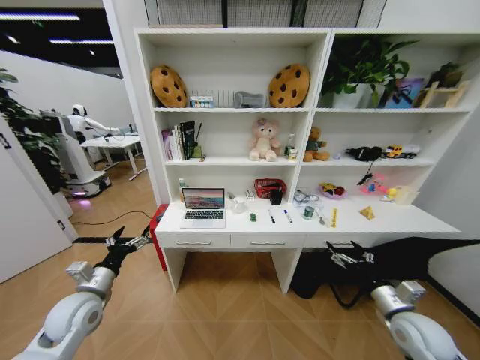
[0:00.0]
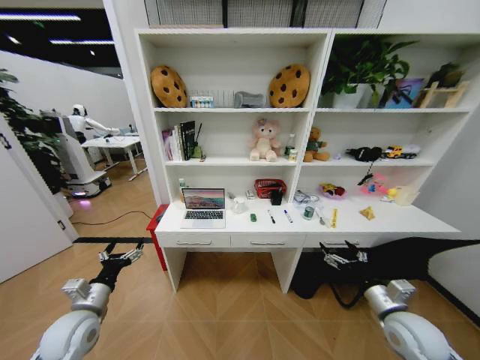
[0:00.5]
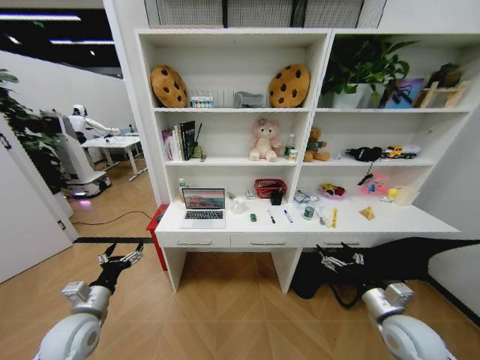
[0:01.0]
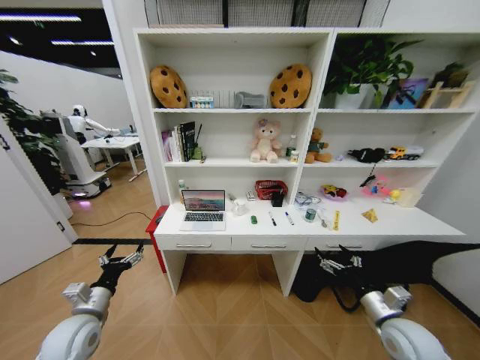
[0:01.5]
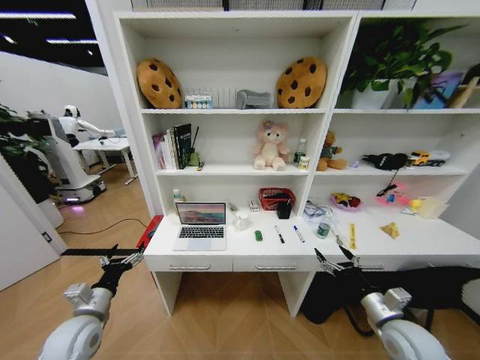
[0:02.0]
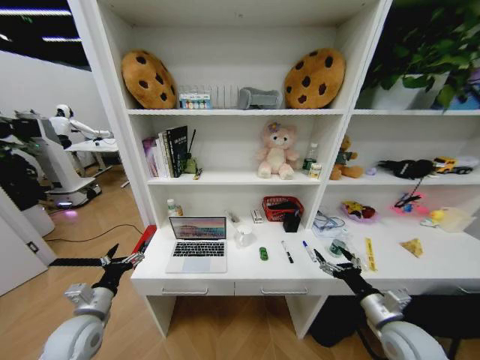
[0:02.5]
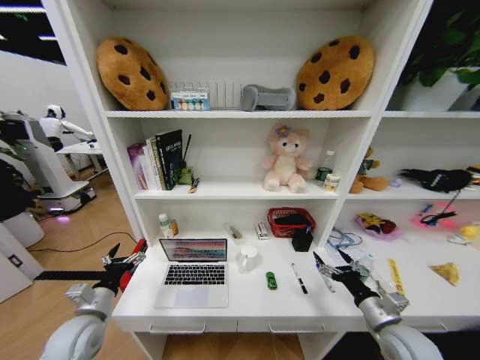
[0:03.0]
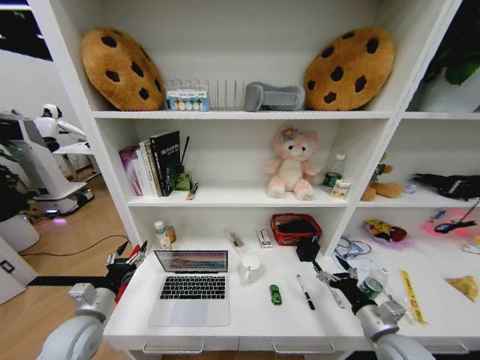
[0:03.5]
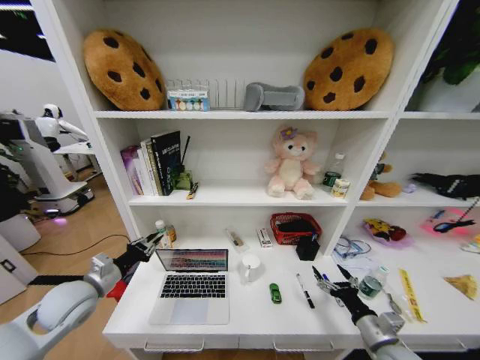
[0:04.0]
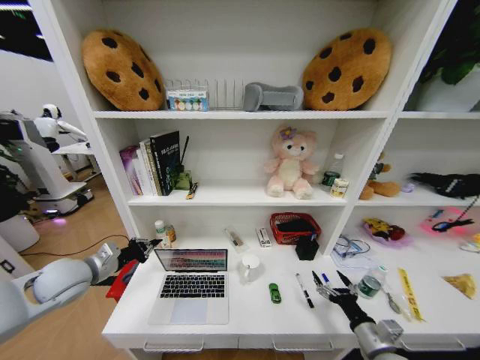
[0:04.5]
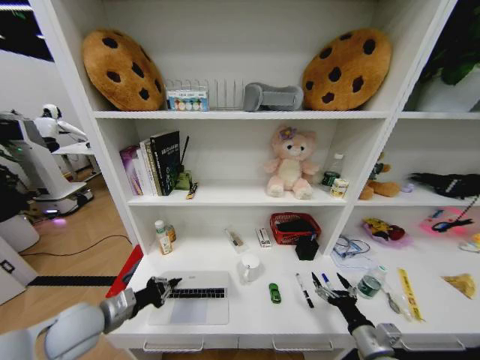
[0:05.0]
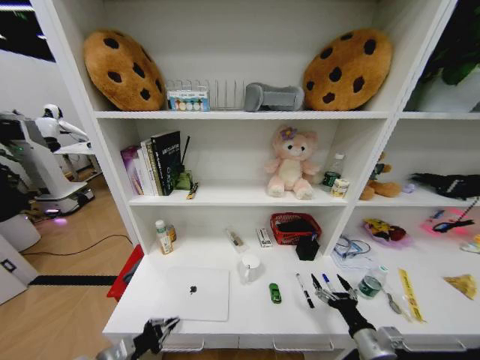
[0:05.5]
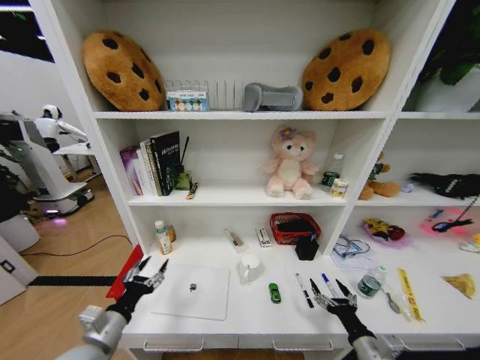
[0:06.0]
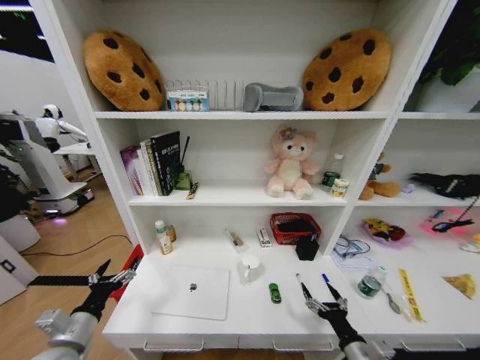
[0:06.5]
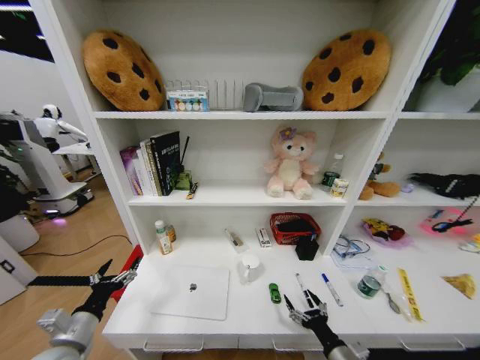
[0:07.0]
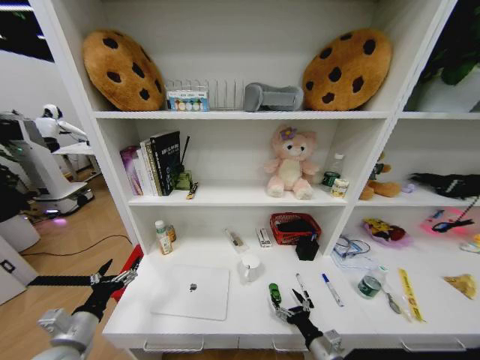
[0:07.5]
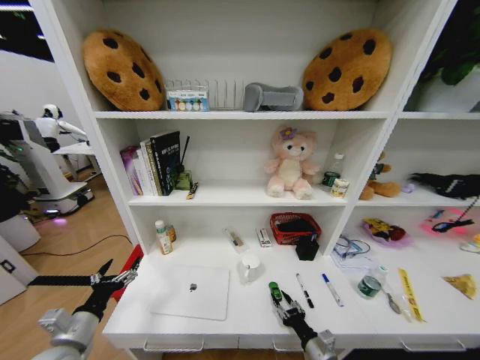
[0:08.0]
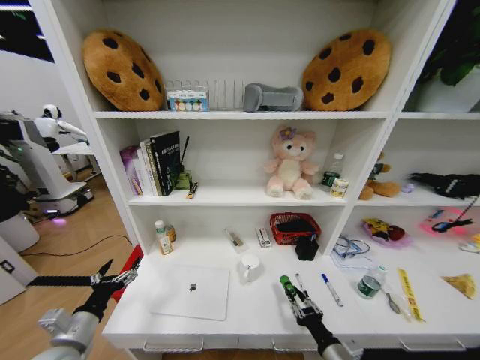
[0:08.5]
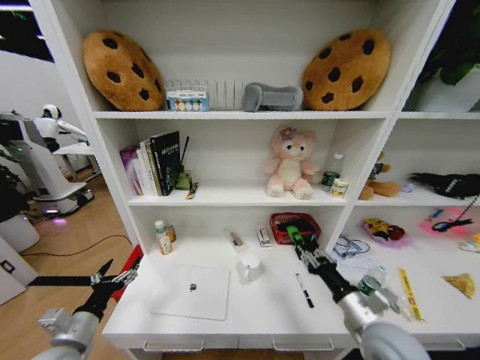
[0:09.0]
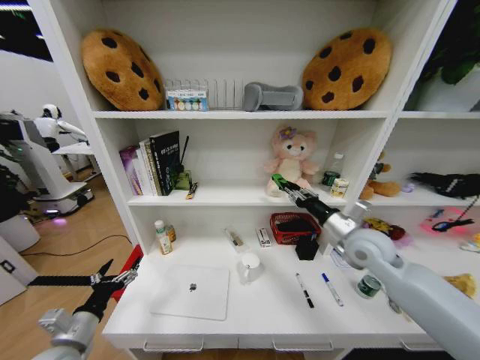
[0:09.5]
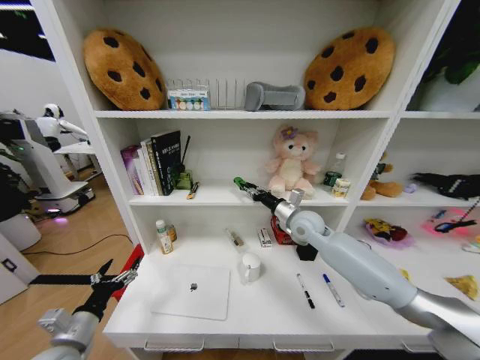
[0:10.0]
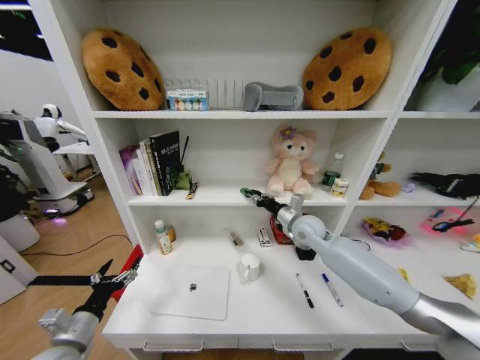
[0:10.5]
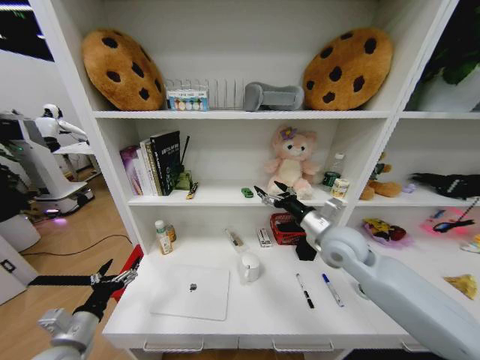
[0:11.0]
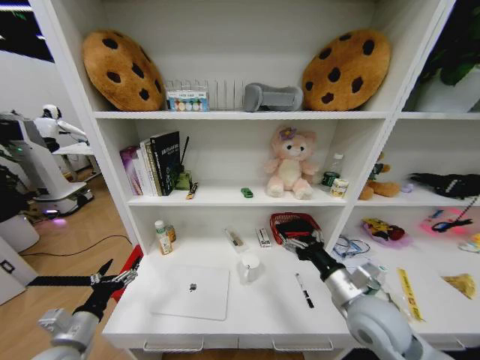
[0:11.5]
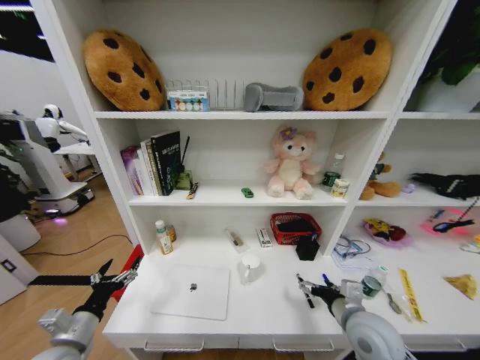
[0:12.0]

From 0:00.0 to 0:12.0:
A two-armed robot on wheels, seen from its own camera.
Task of the whole recording: Organize the objects on the table.
From 0:02.0 to 0:04.0: The right gripper ends up roughly 5 cm from where it was; the left gripper goes approximately 5 cm upward, and closes its fingers.
From 0:04.0 to 0:06.0: The left gripper swings up and down, roughly 15 cm each way, with 2 reversals, and opens up. Meanwhile the right gripper shifts by about 5 cm.
From 0:06.0 to 0:08.0: The left gripper heads to the left, covering about 5 cm, and opens its fingers. Meanwhile the right gripper goes roughly 10 cm downward and to the left, and closes.
From 0:08.0 to 0:10.0: The right gripper heads forward and upward, covering roughly 40 cm.
From 0:10.0 to 0:12.0: The right gripper travels backward by about 25 cm, and opens its fingers.

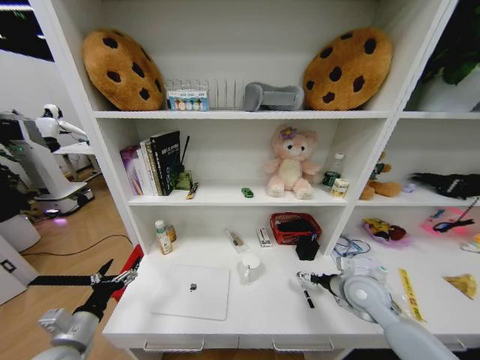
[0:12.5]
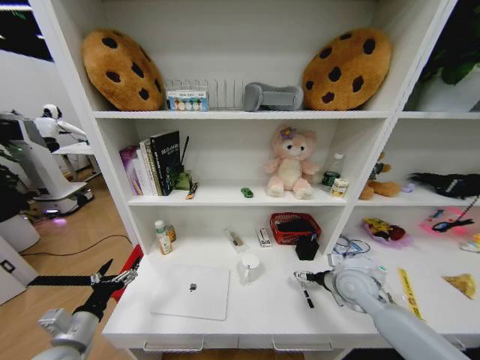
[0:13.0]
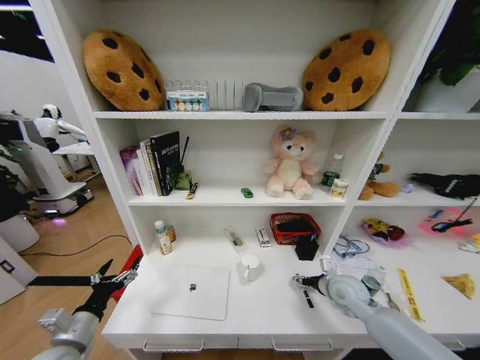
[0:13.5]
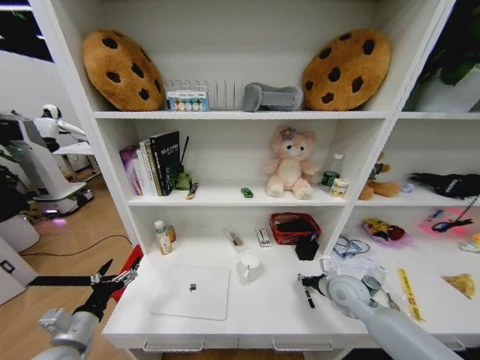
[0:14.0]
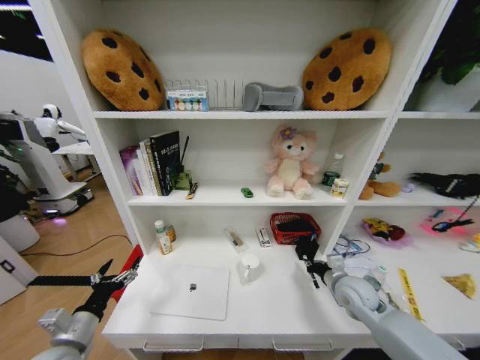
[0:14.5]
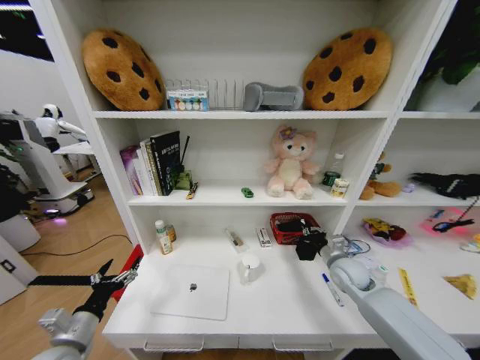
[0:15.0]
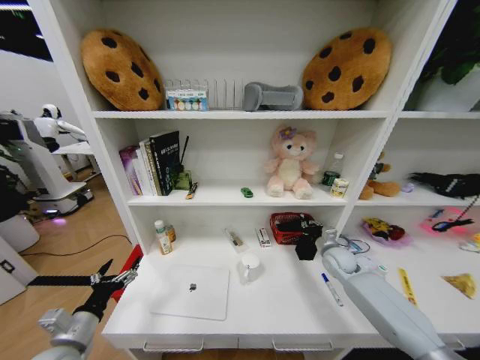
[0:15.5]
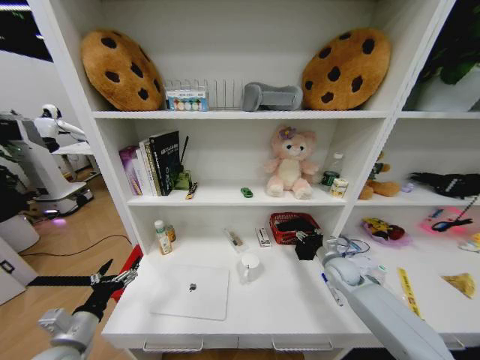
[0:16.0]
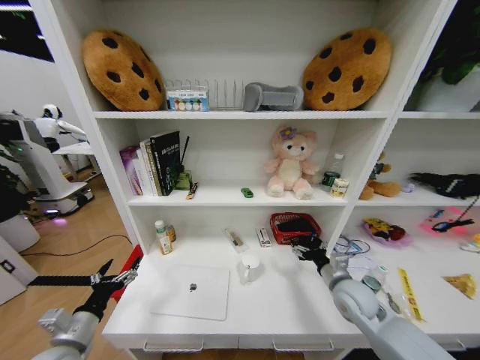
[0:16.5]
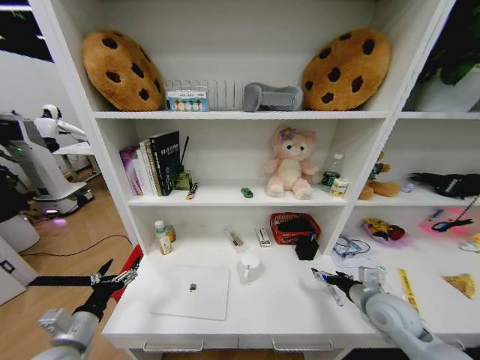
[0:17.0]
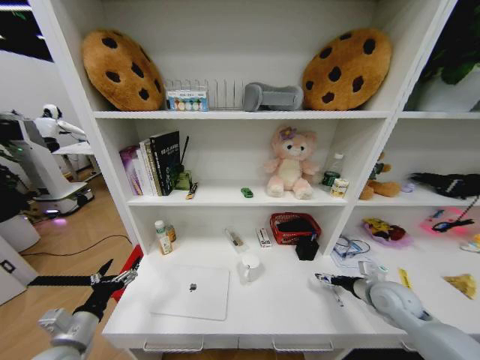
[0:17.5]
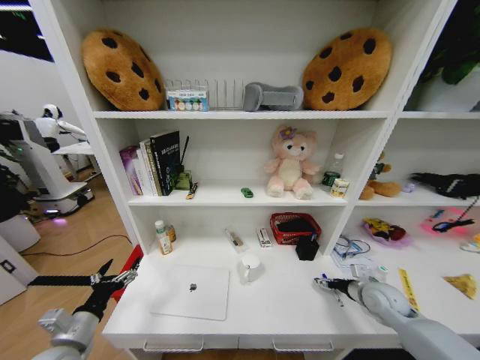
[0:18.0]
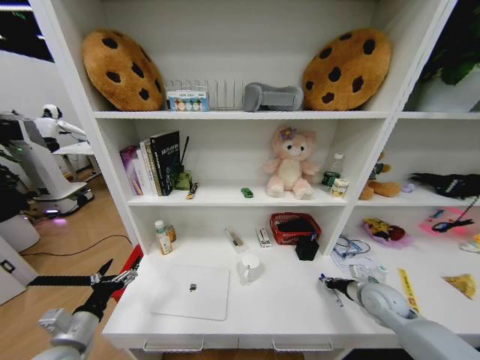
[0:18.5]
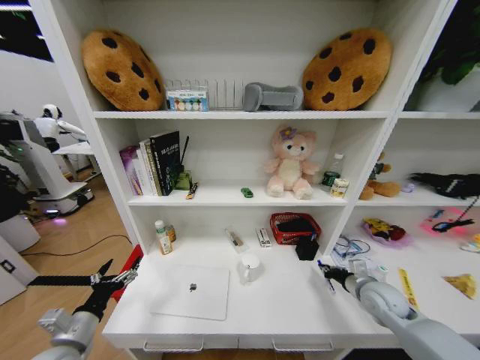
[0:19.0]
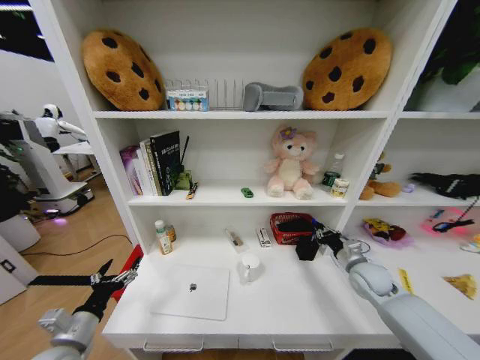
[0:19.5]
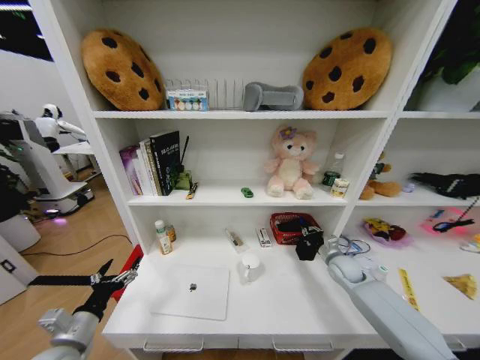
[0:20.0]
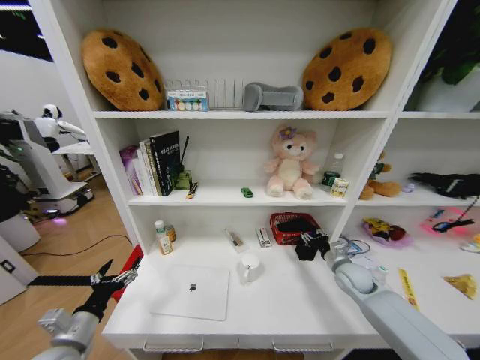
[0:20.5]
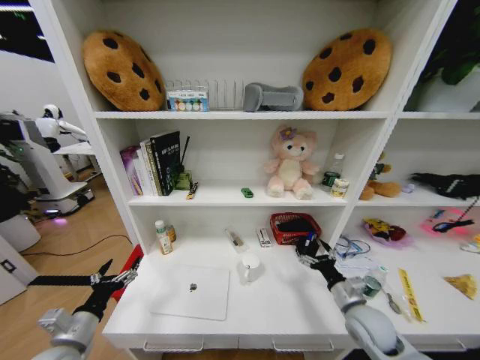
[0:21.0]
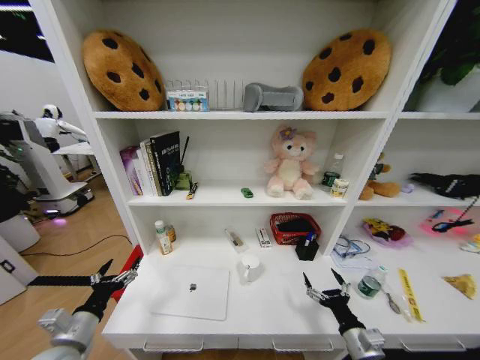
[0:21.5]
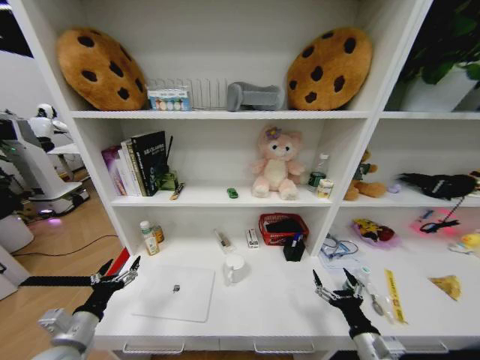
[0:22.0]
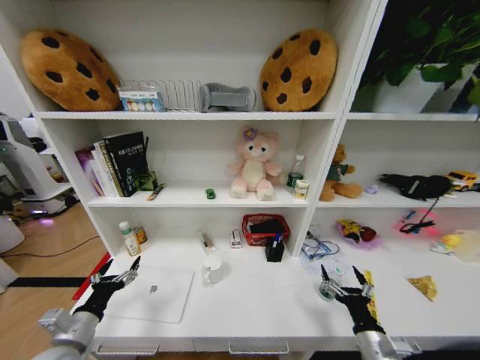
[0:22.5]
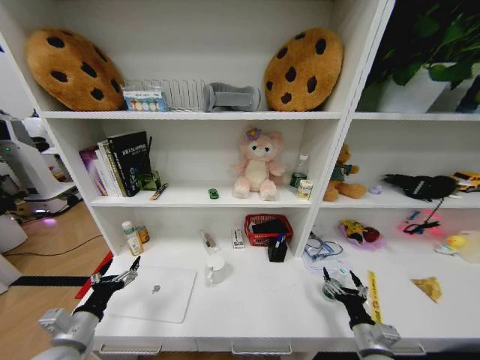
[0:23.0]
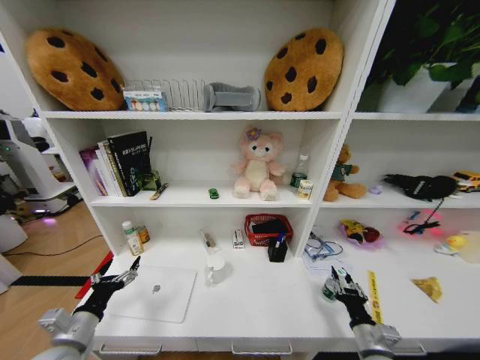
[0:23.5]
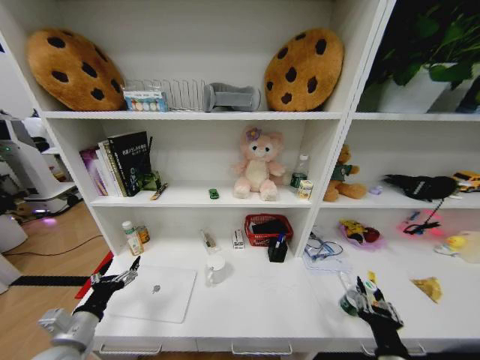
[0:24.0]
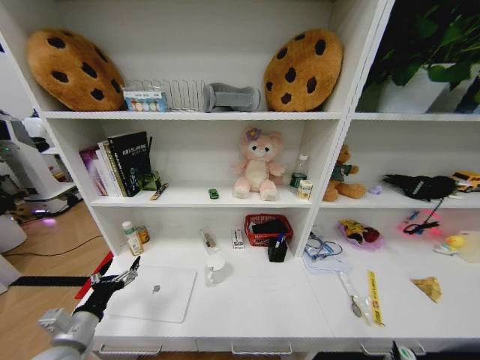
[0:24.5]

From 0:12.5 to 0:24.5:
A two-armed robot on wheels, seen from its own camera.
Task of the whole recording: Organize the objects on the table.
From 0:12.5 to 0:14.5: The right gripper closes up.
From 0:14.5 to 0:16.5: The right gripper reaches roughly 10 cm forward, then returns, and opens.
From 0:16.5 to 0:18.5: The right gripper moves to the right, about 10 cm, and closes.
From 0:18.5 to 0:20.5: The right gripper goes roughly 5 cm forward.
From 0:20.5 to 0:22.5: The right gripper goes some 25 cm backward, and opens its fingers.
From 0:22.5 to 0:24.5: The right gripper goes approximately 15 cm backward, and closes its fingers.

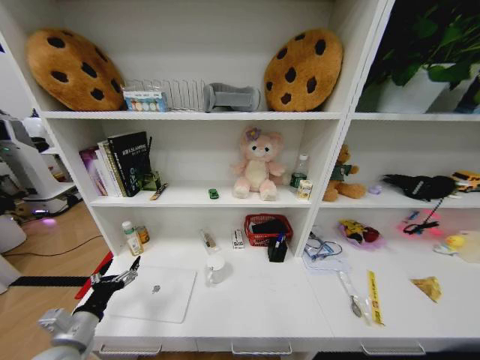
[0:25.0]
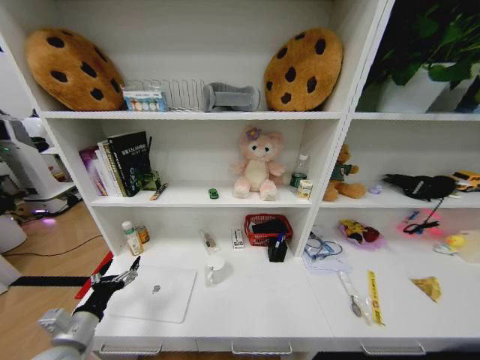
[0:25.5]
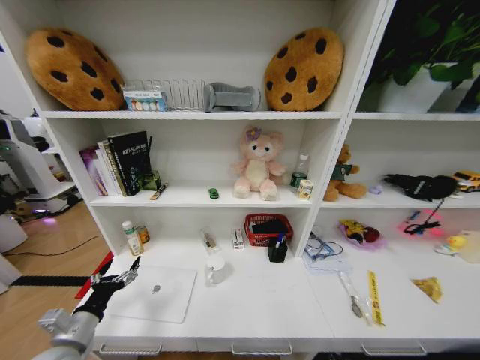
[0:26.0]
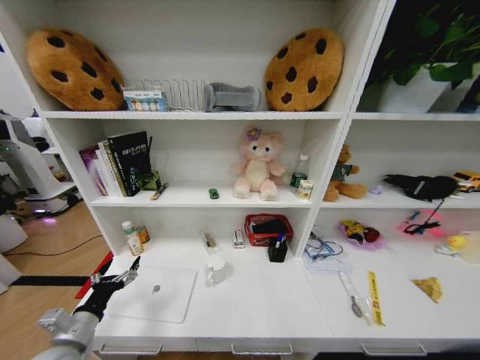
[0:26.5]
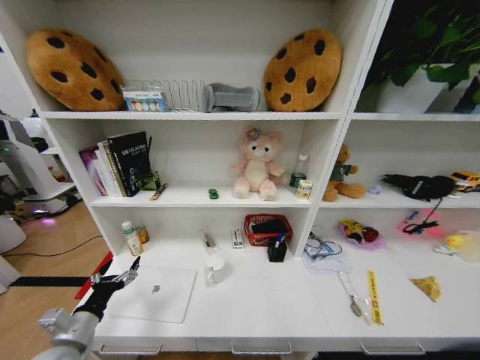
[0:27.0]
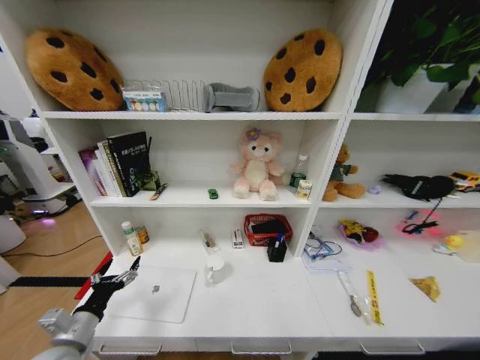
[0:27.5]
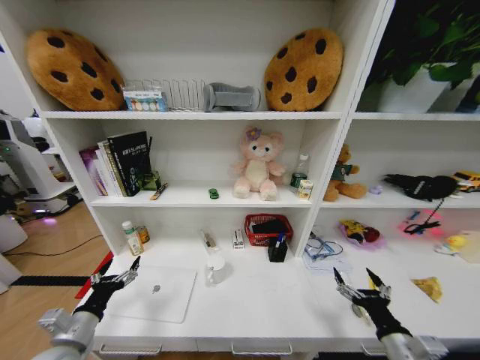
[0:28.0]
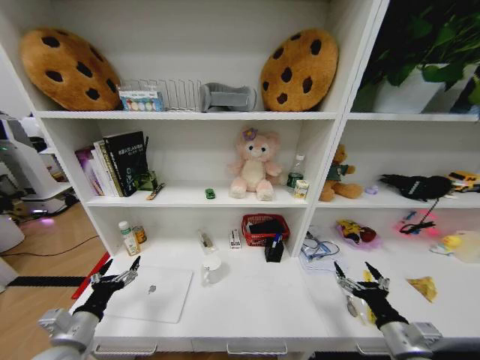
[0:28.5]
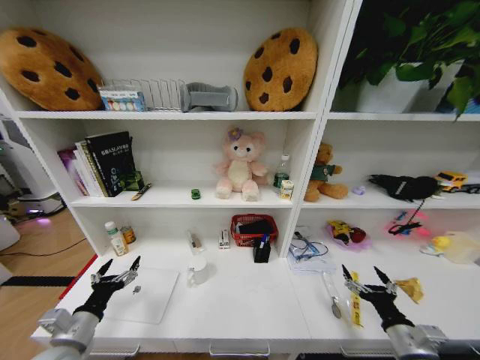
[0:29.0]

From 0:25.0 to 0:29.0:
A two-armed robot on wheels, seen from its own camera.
Task of the whole recording: Organize the objects on the table.
From 0:27.0 to 0:29.0: The right gripper shifts approximately 35 cm upward, forward and to the right.
